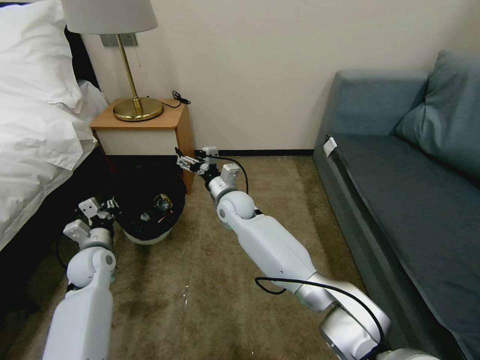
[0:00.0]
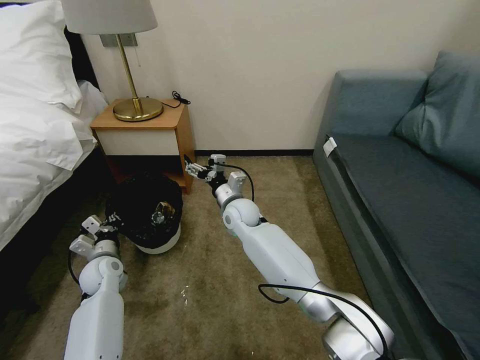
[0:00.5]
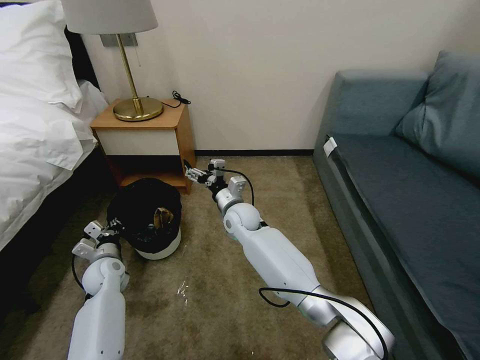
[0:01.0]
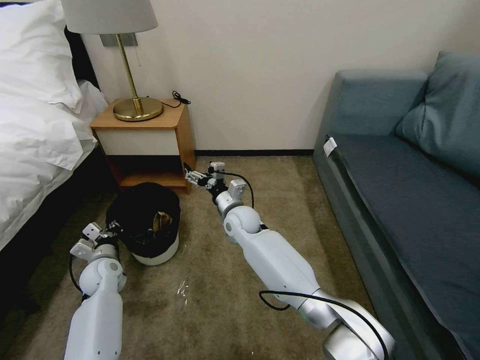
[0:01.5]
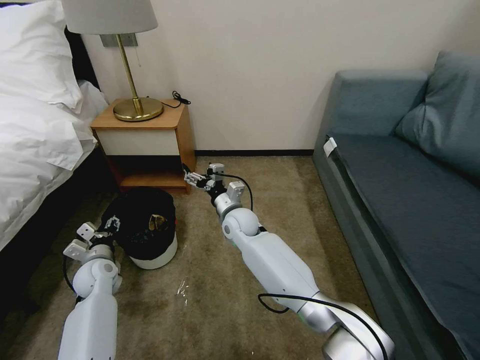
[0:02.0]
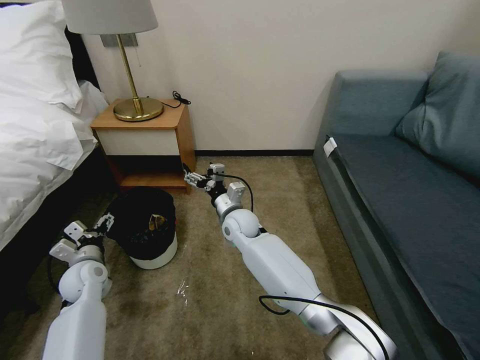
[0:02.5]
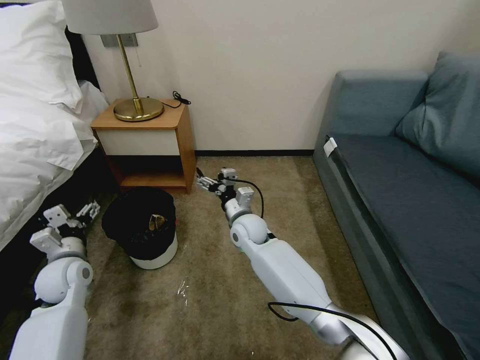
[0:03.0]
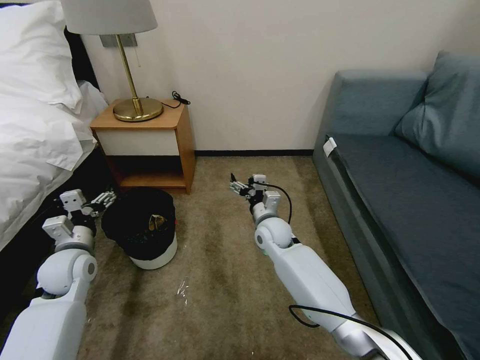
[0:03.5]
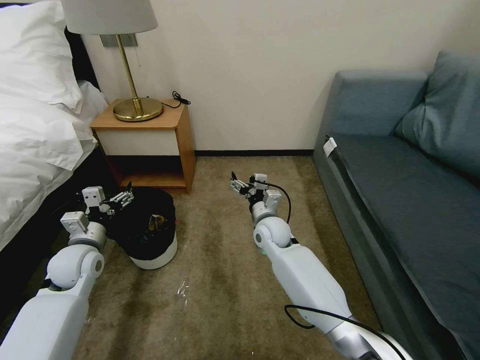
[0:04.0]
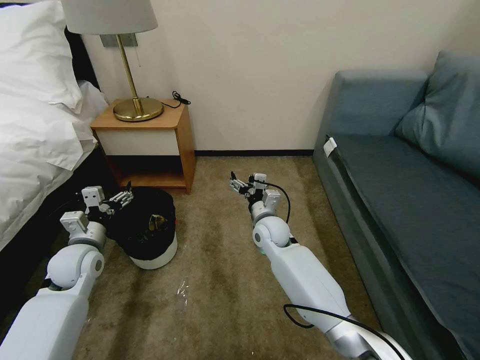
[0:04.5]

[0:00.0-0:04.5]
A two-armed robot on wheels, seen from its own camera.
Task of the whole recording: Pick up the trash bin, then pick up the garbage on the floor and place it into the trash bin.
0:00.0 to 0:02.0: The right gripper changes place by roughly 5 cm. Meanwhile the left gripper opens its fingers.
0:02.0 to 0:04.5: The right gripper travels to the right by approximately 10 cm. Meanwhile the left gripper shifts some 10 cm upward.

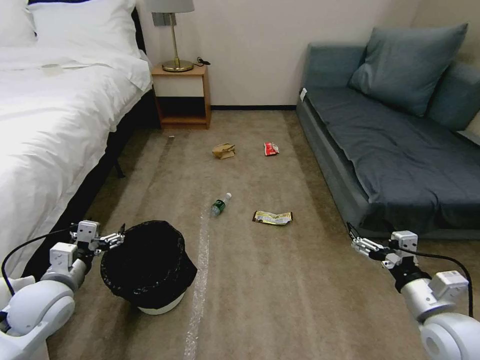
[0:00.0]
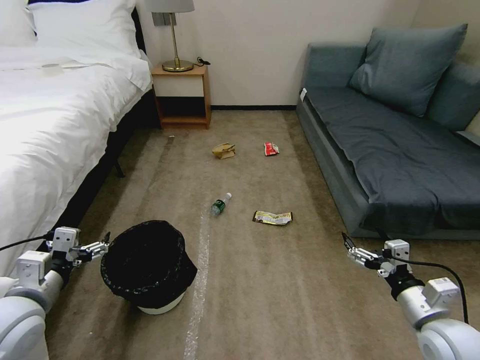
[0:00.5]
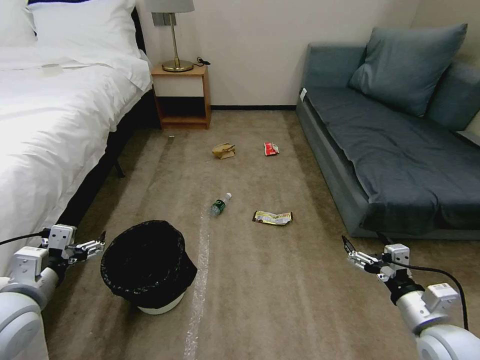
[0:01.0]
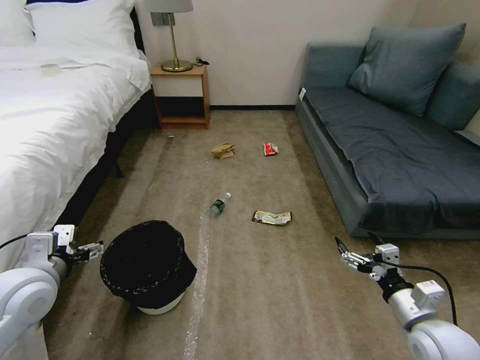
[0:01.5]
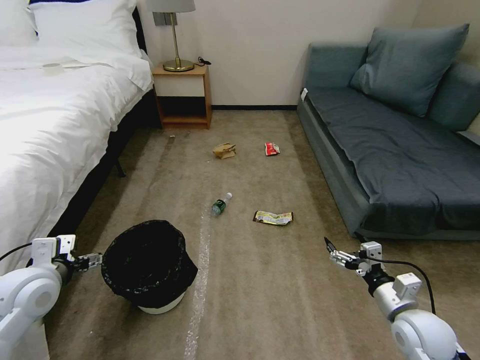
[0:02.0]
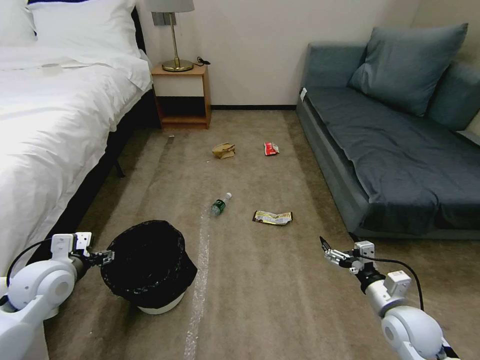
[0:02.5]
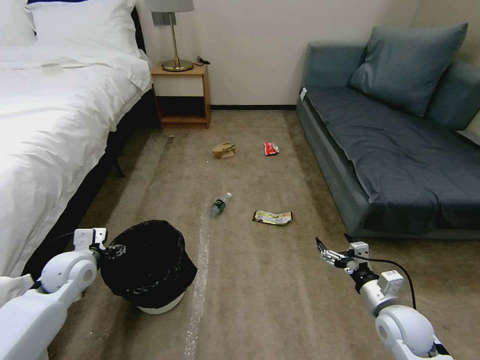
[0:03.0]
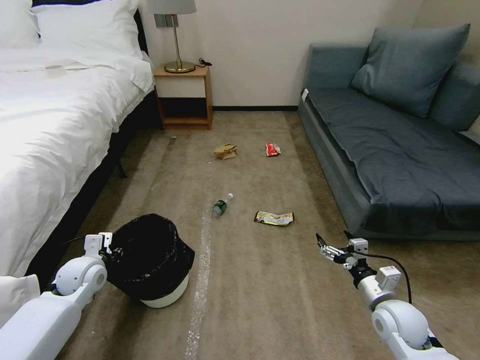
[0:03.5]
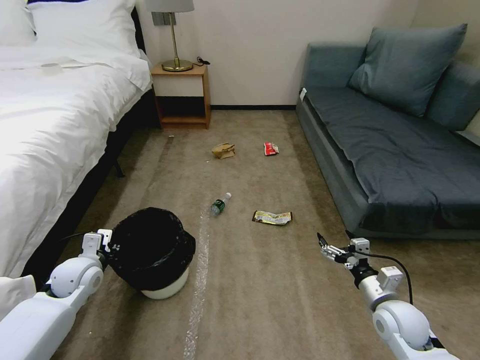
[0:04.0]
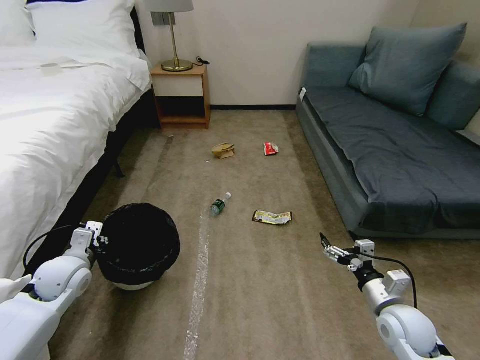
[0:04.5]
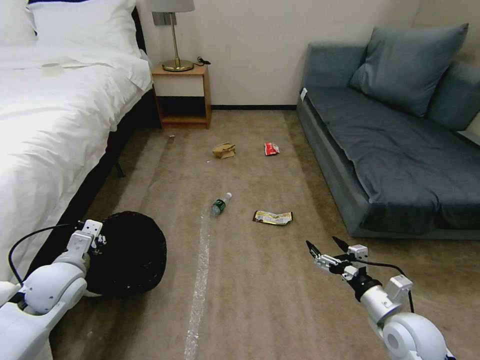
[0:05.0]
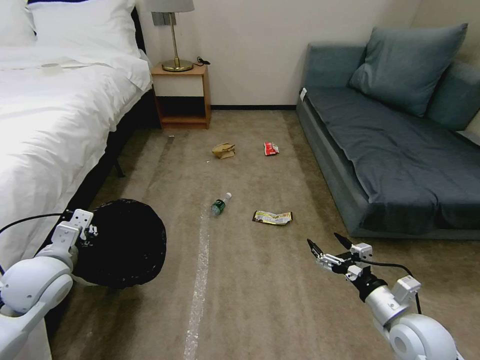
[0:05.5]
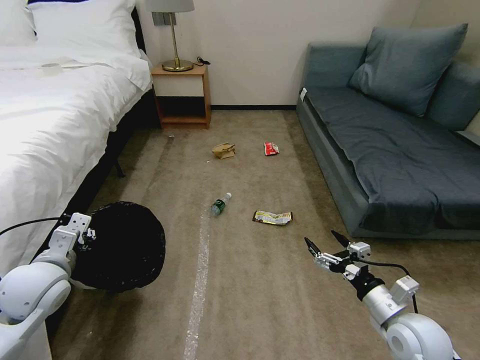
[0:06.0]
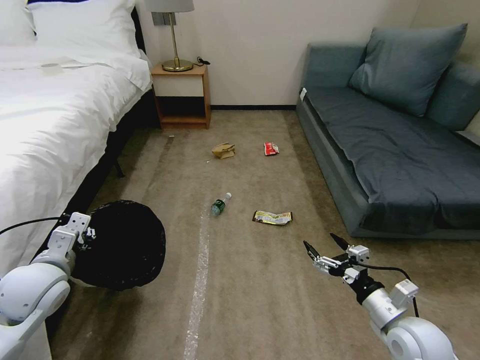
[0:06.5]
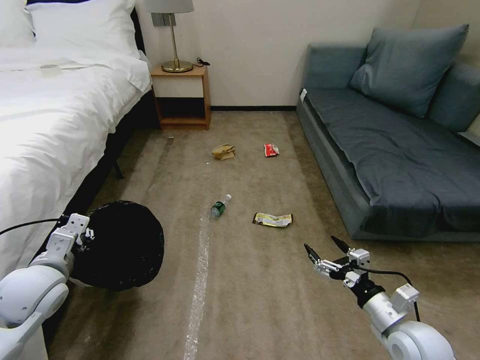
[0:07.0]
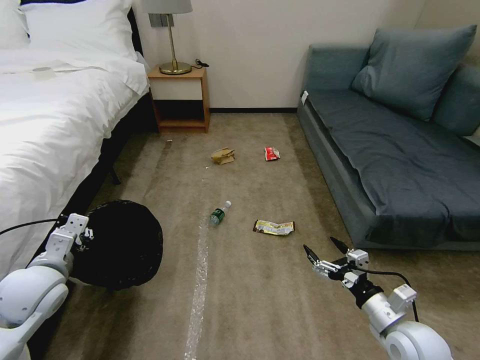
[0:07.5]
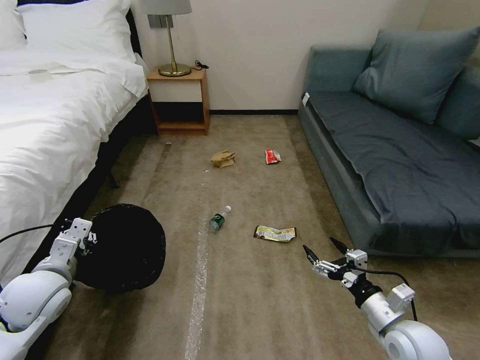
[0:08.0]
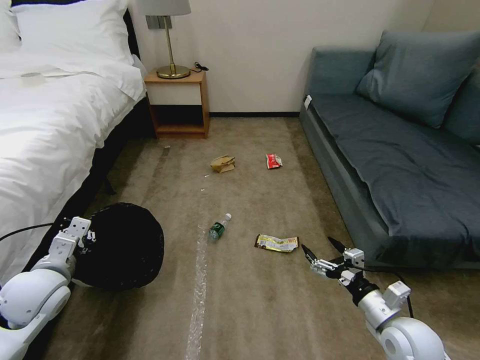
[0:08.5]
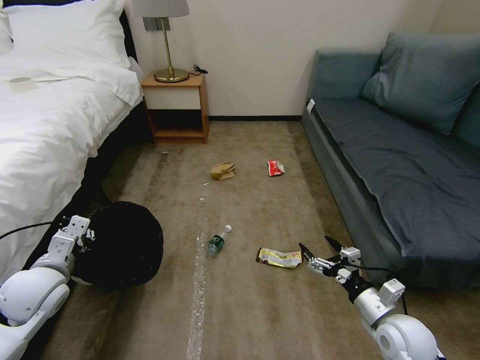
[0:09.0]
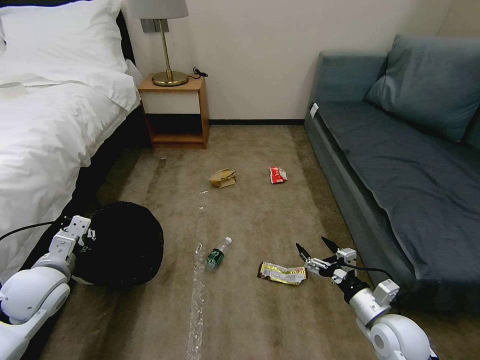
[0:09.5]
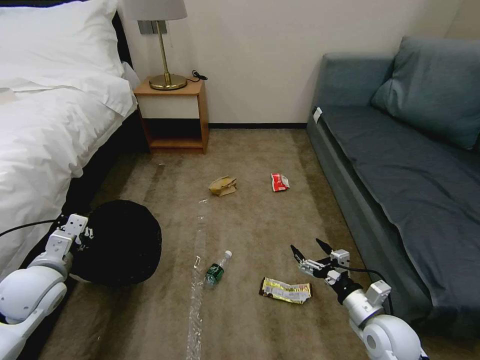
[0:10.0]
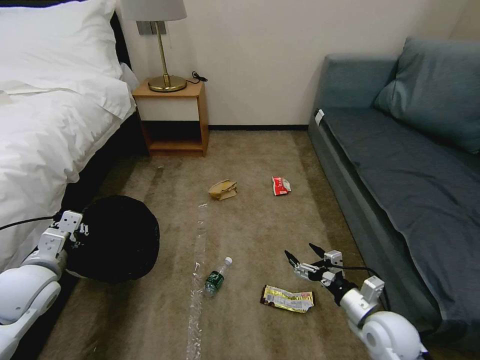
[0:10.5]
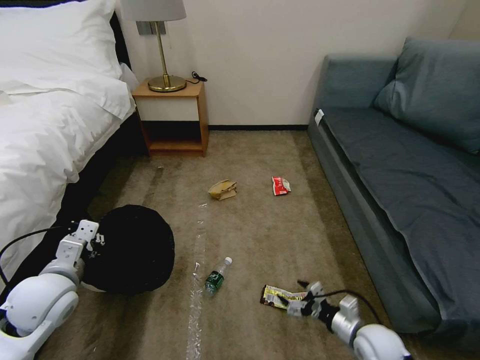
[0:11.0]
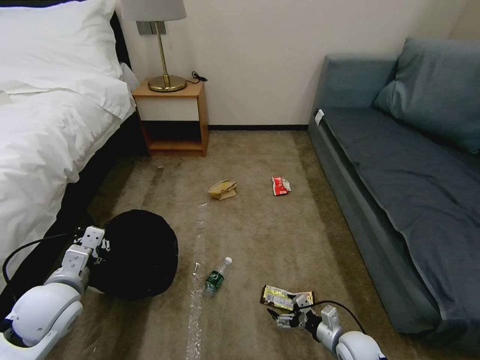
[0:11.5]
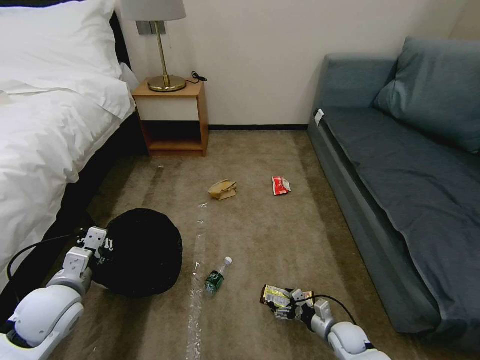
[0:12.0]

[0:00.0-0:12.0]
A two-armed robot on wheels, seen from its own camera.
Task of the whole recording: Pick up the trash bin, then pick up the garbage on the floor and place it into the trash bin.
0:02.0 to 0:04.0: The left gripper is displaced downward and forward by some 15 cm, and closes its fingers.
0:04.0 to 0:06.0: The left gripper goes approximately 10 cm upward and backward; the right gripper changes place by about 5 cm.
0:06.0 to 0:08.0: The grippers make only small movements.
0:10.0 to 0:12.0: The right gripper travels downward by about 20 cm. The left gripper changes place by roughly 5 cm.

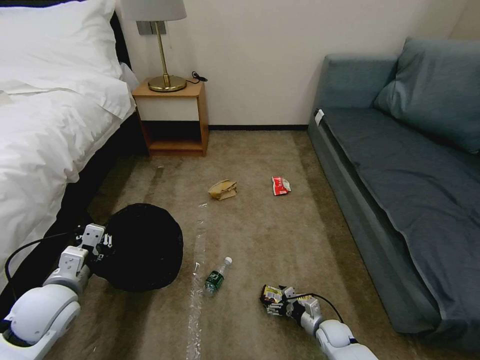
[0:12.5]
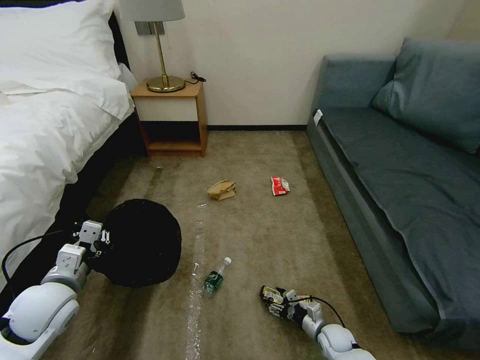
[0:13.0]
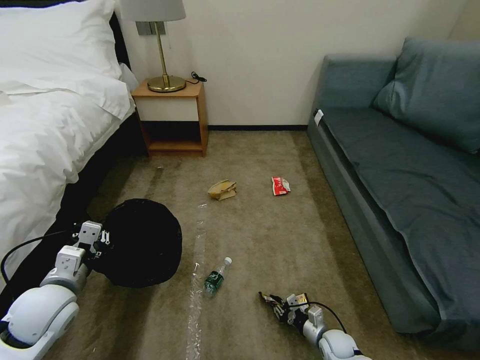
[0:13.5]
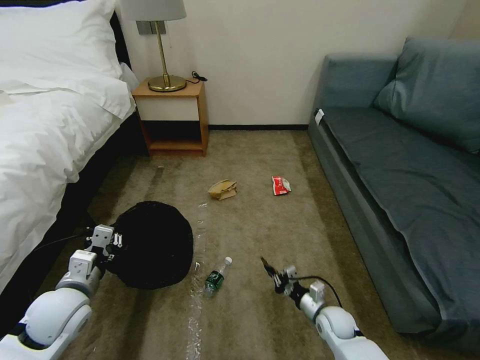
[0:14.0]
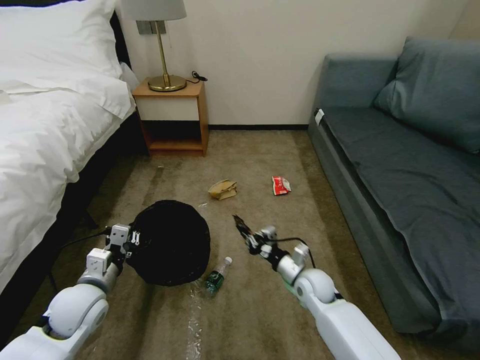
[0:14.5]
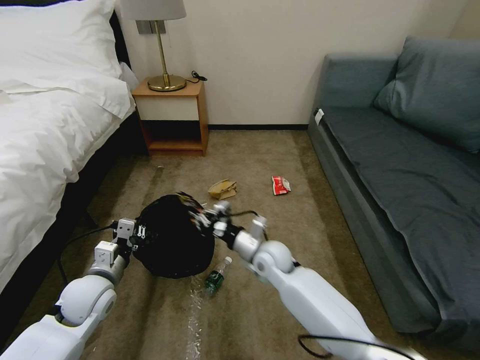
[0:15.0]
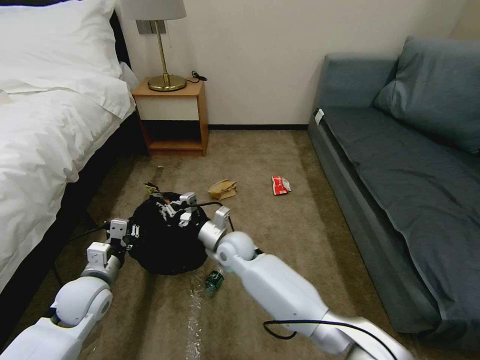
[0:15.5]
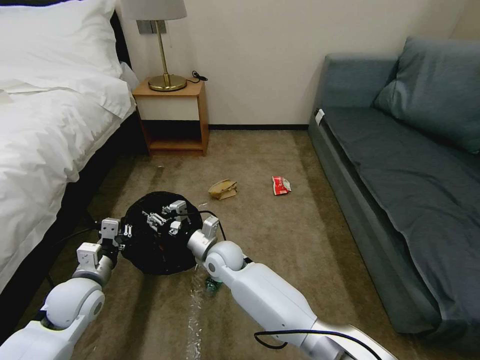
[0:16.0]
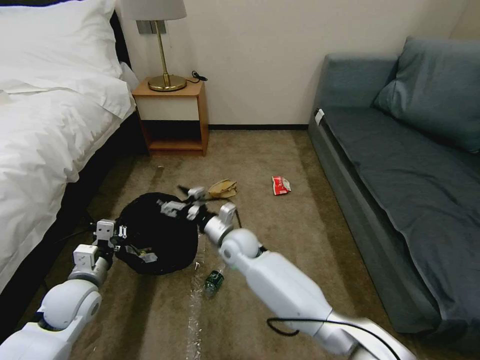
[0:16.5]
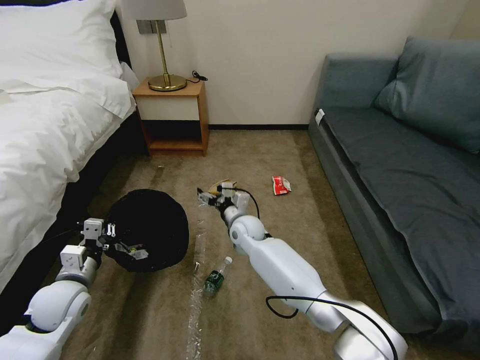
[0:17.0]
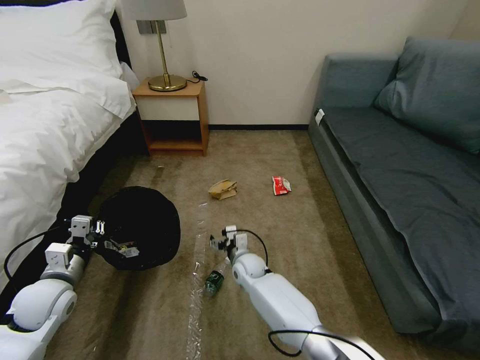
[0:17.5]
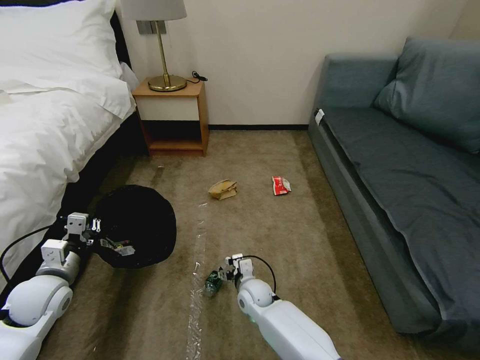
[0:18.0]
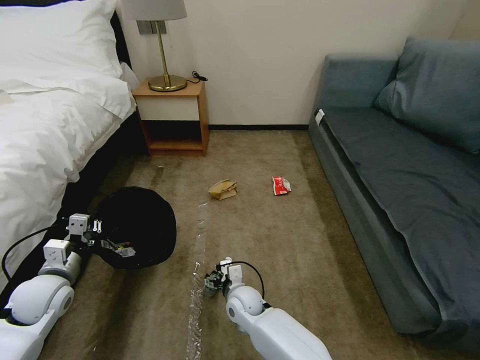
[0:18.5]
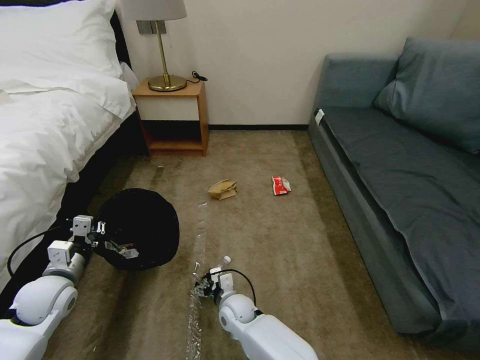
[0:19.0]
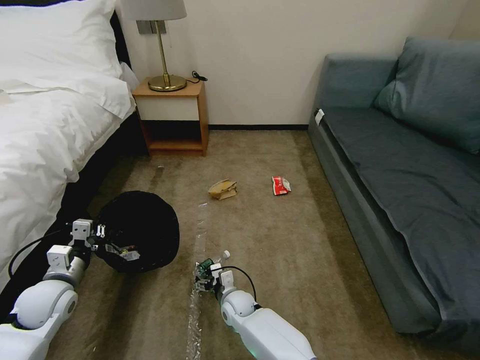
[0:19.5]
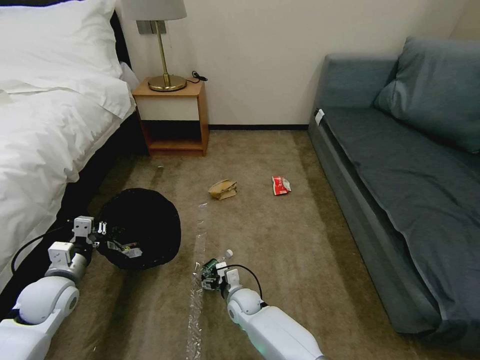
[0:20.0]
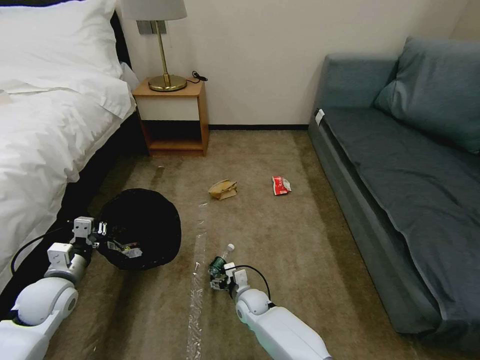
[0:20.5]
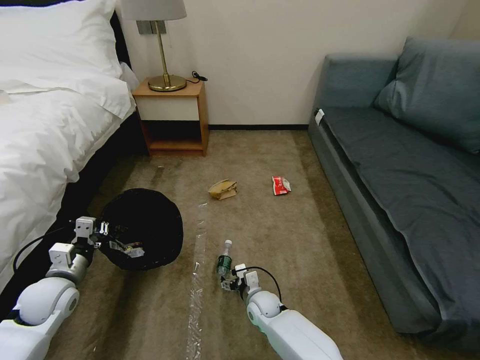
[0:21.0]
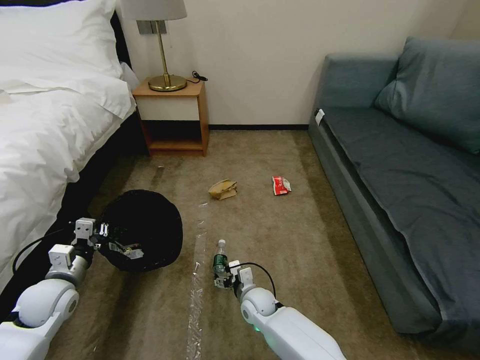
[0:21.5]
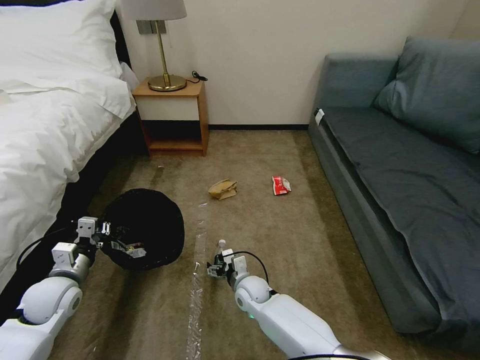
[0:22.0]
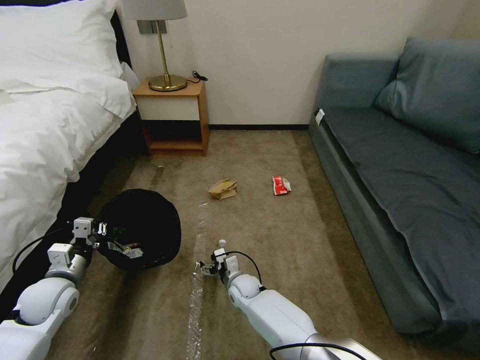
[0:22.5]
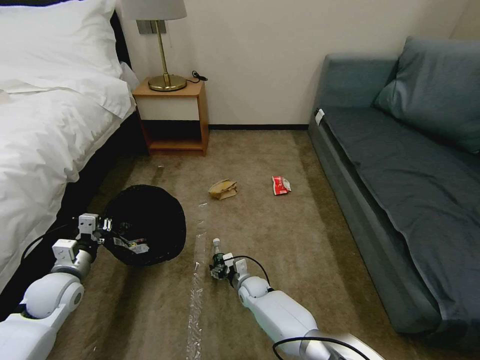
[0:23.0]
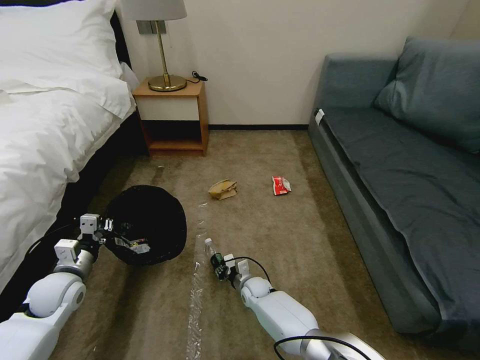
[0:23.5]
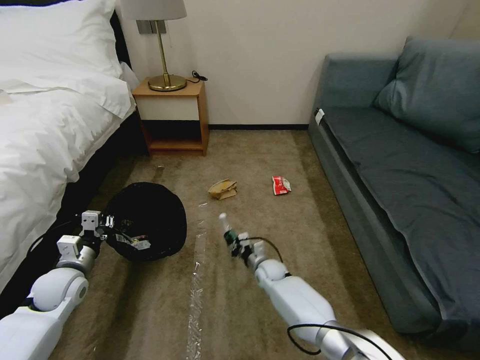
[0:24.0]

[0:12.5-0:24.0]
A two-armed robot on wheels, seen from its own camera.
Task of the whole recording: Pick up the trash bin, then pick up the garbage on the floor and place it into the trash bin.
0:12.5 to 0:14.5: The left gripper shifts by roughly 5 cm. The right gripper travels upward, to the left and forward by some 20 cm, and closes.
0:14.5 to 0:16.5: The right gripper is displaced to the left and upward by about 20 cm, and opens its fingers.
0:16.5 to 0:18.5: The left gripper moves to the left, roughly 5 cm; the right gripper goes some 15 cm downward and backward.
0:18.5 to 0:20.0: The right gripper is displaced downward by approximately 5 cm.
0:20.0 to 0:22.0: The right gripper moves about 5 cm.
0:22.0 to 0:24.0: The right gripper goes some 10 cm forward and to the right, and closes its fingers.
